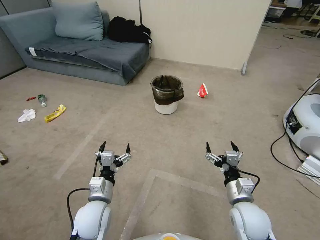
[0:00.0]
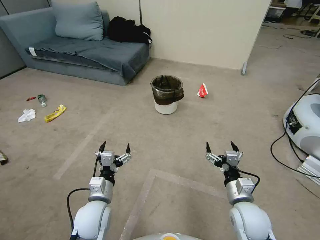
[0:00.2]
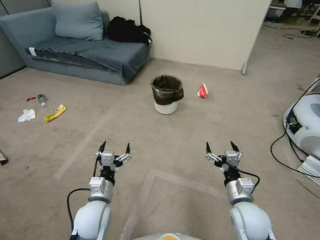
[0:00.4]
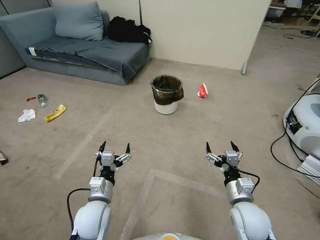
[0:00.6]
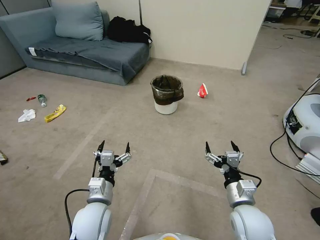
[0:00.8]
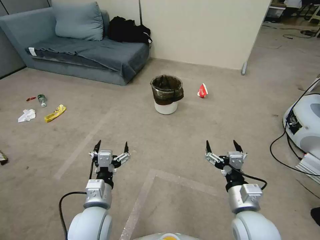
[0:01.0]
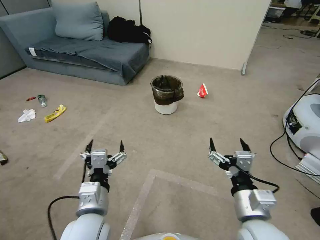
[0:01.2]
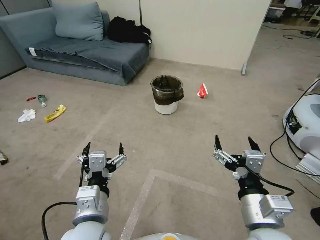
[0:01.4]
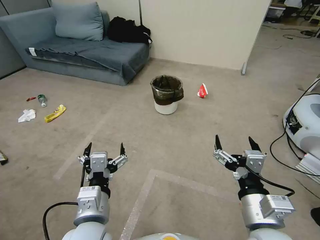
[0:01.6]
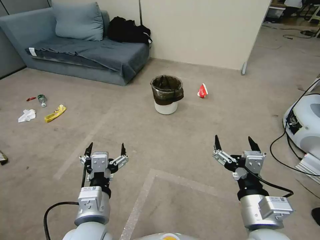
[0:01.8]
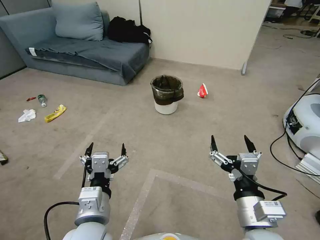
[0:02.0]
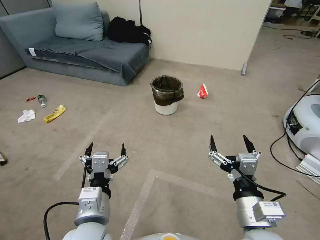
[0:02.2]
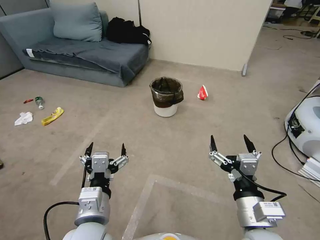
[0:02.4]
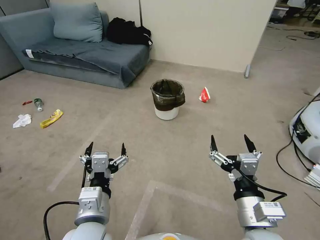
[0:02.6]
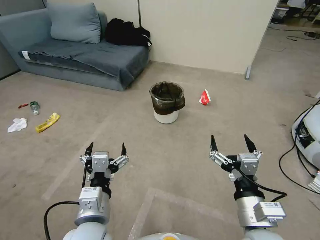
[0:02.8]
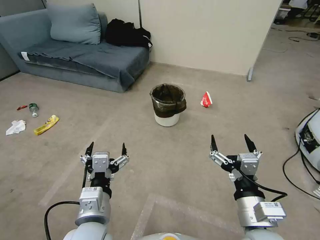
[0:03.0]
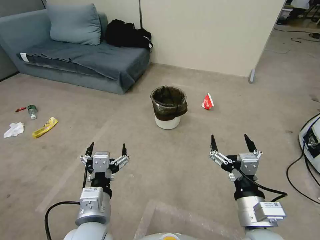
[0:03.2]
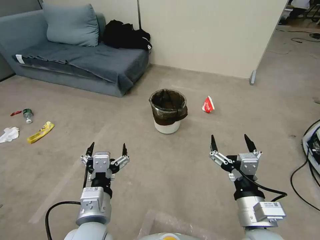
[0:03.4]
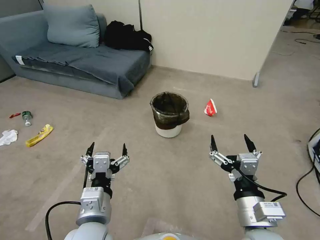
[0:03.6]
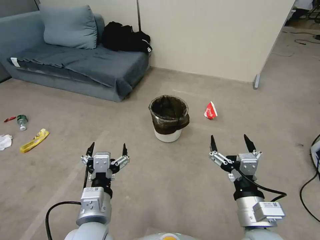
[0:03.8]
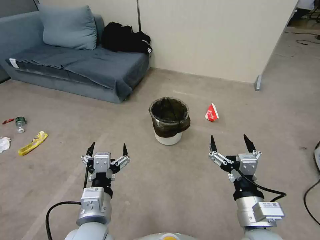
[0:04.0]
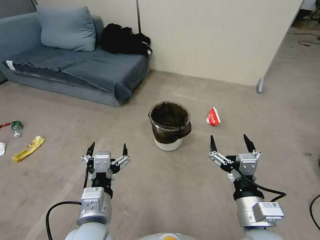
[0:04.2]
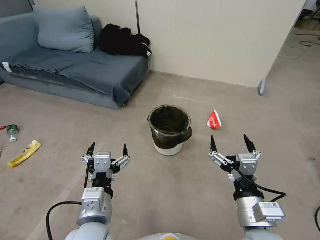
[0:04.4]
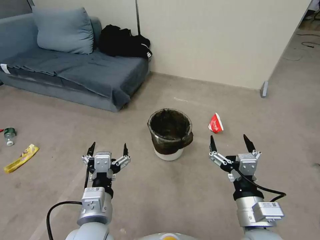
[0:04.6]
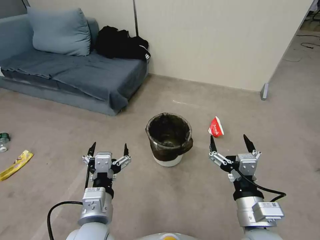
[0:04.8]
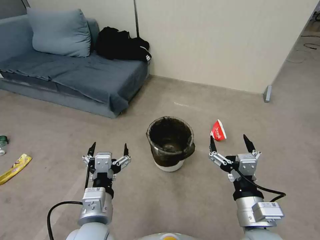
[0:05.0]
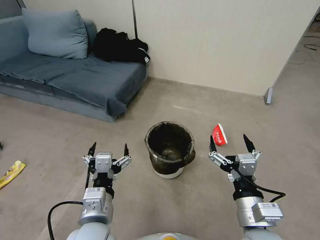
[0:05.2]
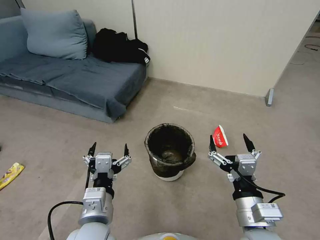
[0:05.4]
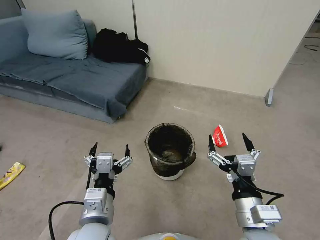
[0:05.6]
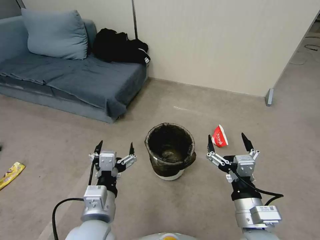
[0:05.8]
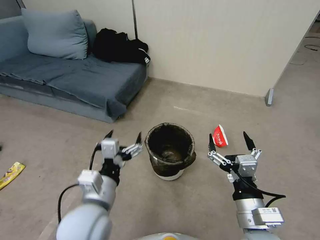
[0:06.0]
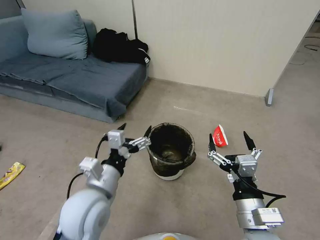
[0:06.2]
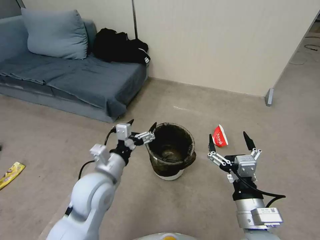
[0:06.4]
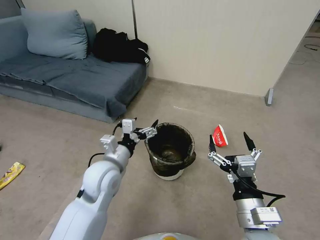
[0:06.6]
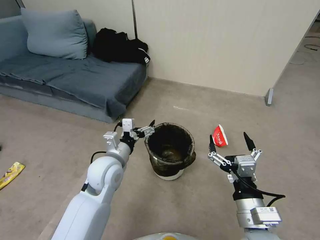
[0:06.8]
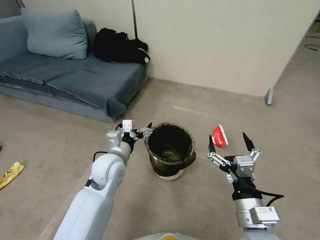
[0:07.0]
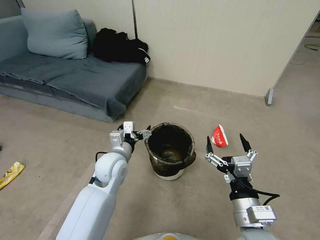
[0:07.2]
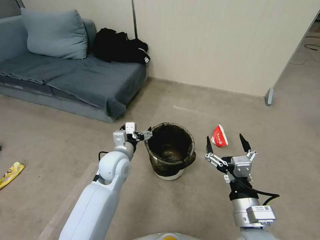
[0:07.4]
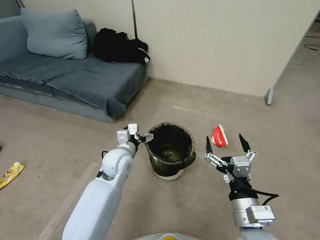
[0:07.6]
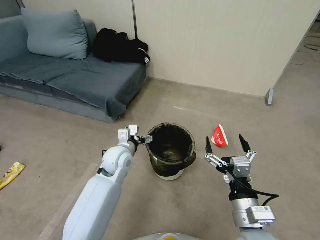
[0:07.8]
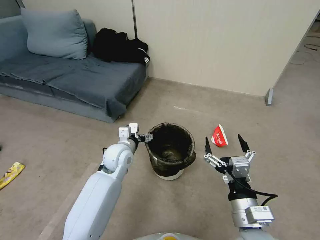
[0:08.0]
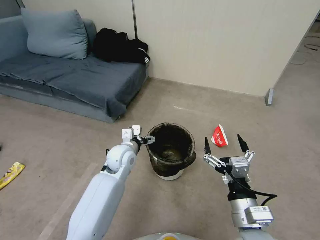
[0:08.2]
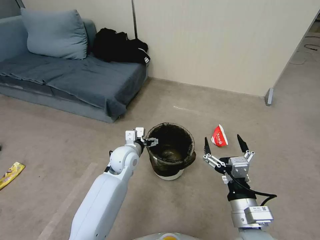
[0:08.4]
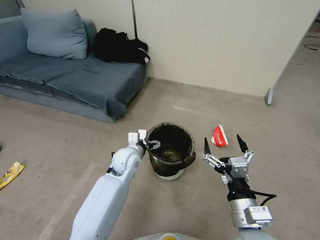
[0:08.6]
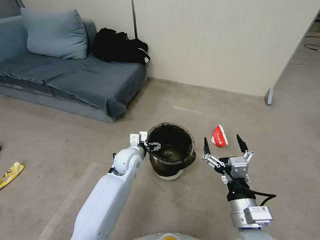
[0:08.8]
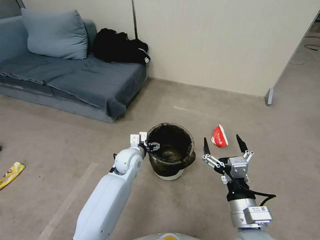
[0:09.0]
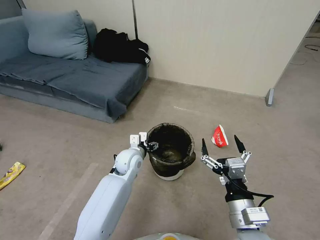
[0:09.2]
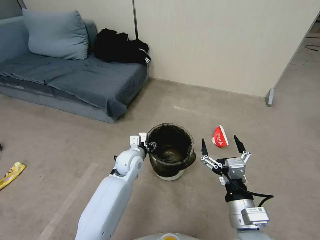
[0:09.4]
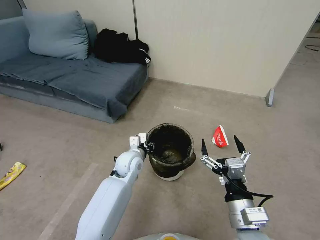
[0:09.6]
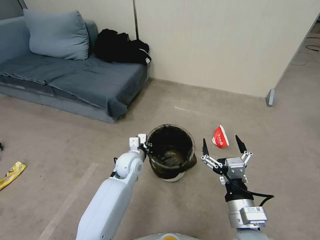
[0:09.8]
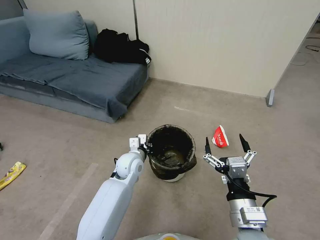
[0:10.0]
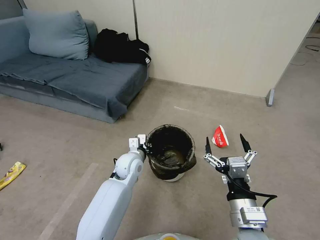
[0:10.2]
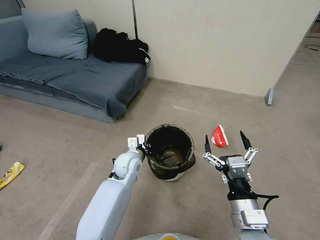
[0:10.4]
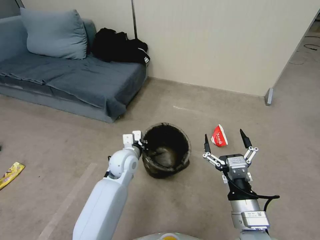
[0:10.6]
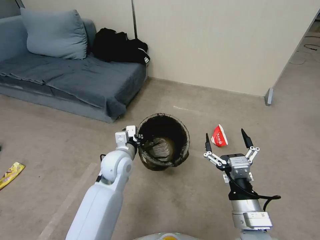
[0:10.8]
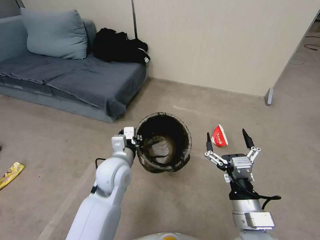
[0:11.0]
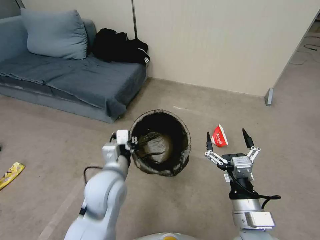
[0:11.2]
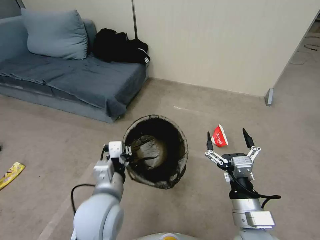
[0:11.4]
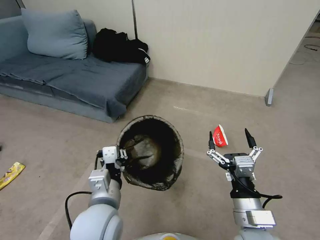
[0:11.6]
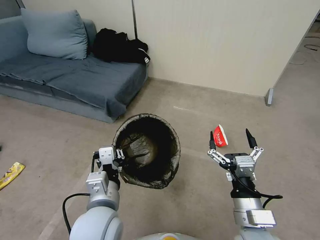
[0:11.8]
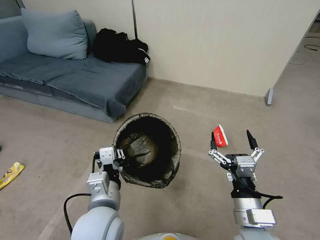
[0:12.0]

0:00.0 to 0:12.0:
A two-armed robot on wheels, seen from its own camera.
Task of the whole recording: Pick up the trash bin, then pick up the garbage from the floor and place it into the trash bin.
0:06.0 to 0:07.6: The left gripper shifts about 20 cm forward and downward.
0:07.6 to 0:09.0: The left gripper goes some 5 cm downward.
0:09.0 to 0:10.4: The left gripper closes its fingers.
0:10.4 to 0:12.0: The left gripper goes about 25 cm backward and upward.

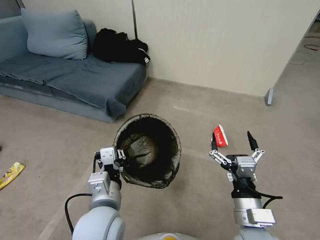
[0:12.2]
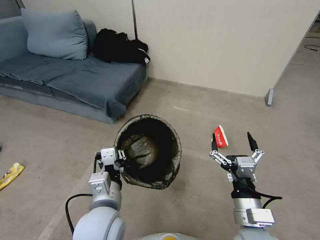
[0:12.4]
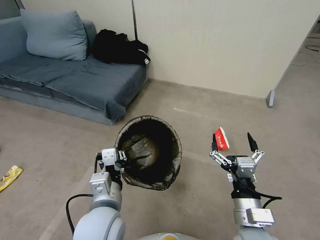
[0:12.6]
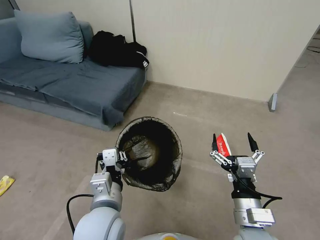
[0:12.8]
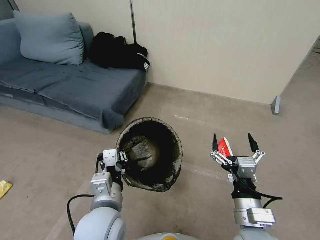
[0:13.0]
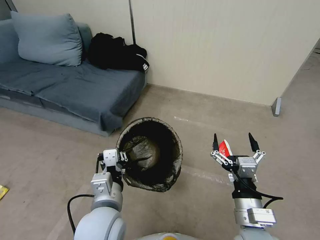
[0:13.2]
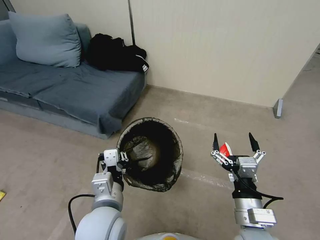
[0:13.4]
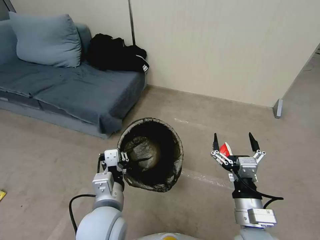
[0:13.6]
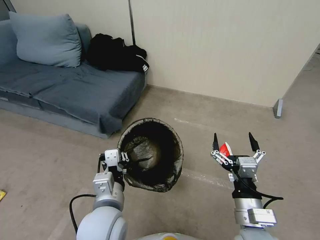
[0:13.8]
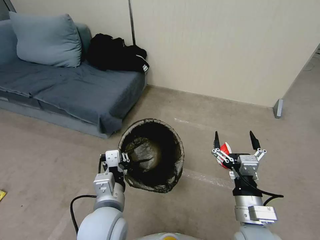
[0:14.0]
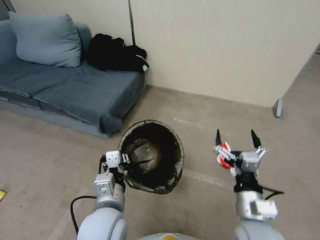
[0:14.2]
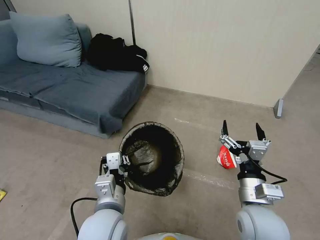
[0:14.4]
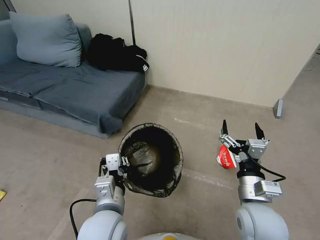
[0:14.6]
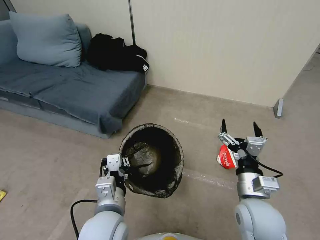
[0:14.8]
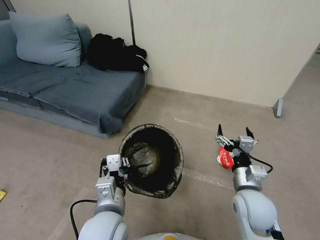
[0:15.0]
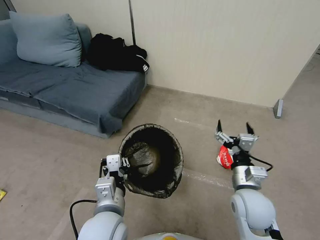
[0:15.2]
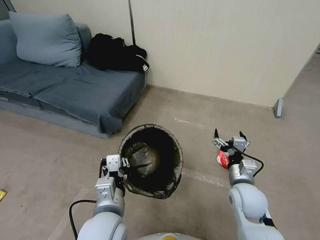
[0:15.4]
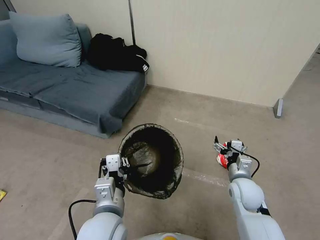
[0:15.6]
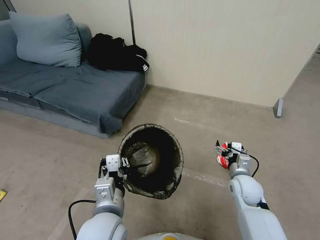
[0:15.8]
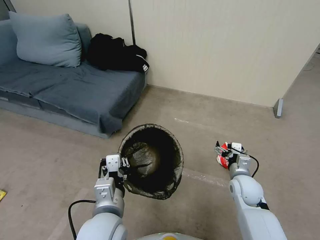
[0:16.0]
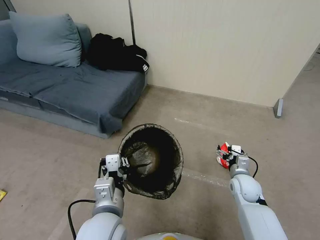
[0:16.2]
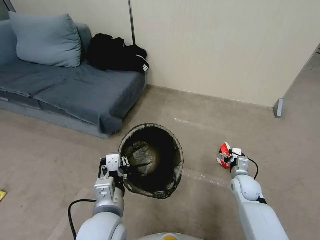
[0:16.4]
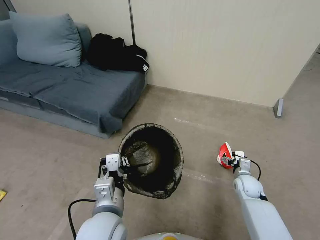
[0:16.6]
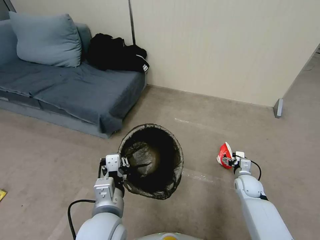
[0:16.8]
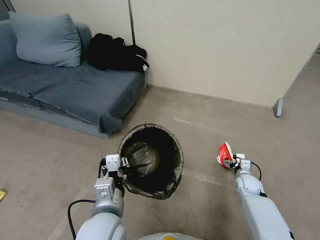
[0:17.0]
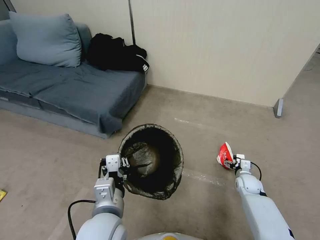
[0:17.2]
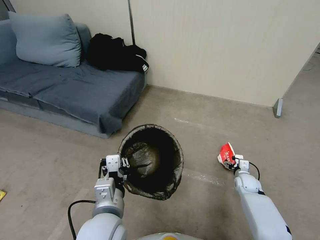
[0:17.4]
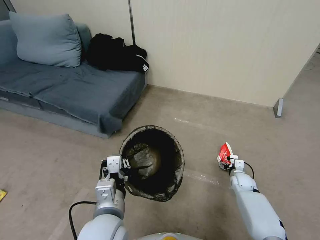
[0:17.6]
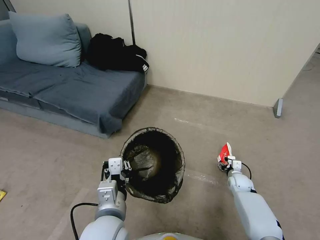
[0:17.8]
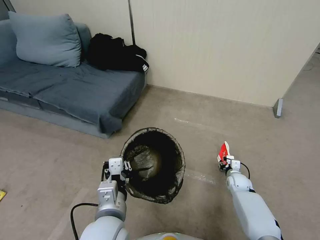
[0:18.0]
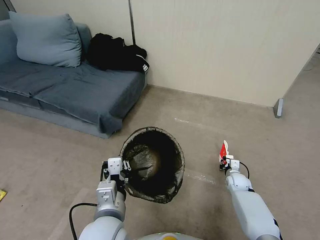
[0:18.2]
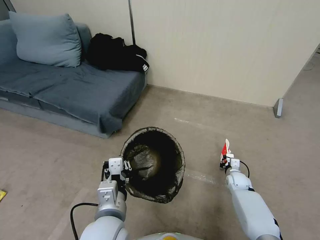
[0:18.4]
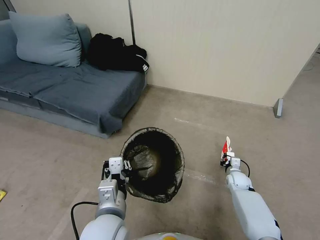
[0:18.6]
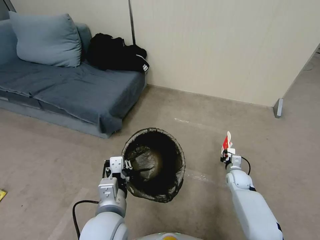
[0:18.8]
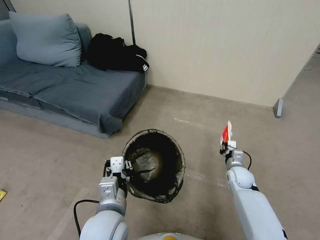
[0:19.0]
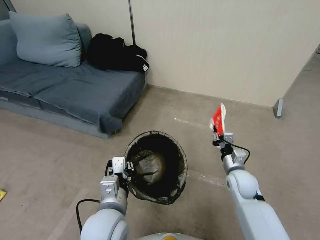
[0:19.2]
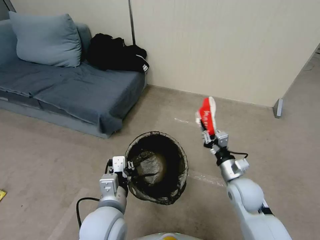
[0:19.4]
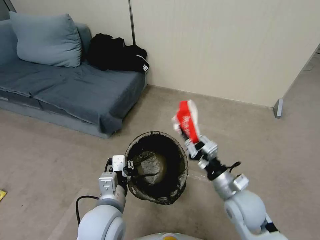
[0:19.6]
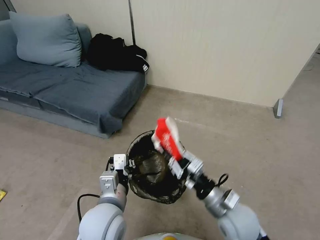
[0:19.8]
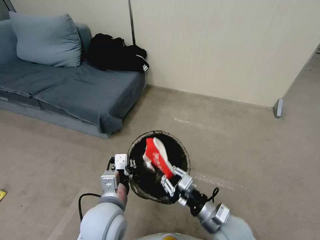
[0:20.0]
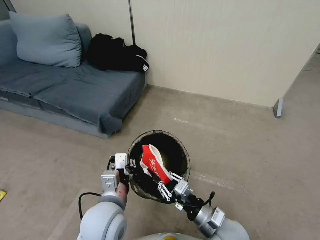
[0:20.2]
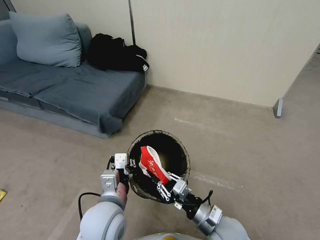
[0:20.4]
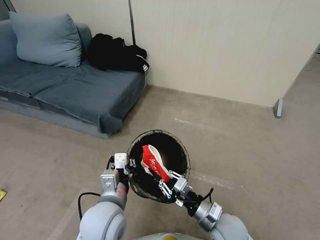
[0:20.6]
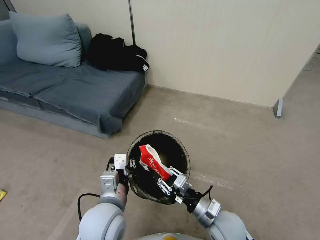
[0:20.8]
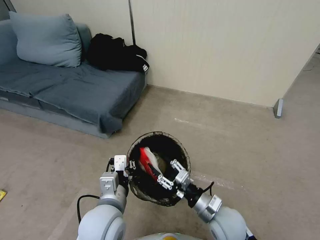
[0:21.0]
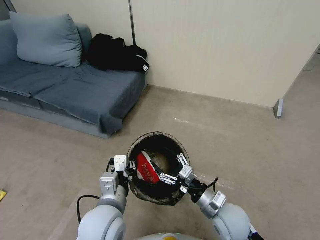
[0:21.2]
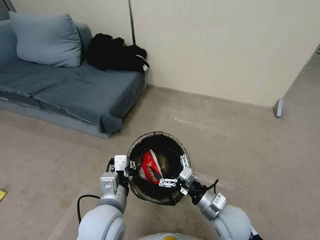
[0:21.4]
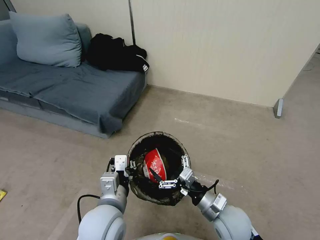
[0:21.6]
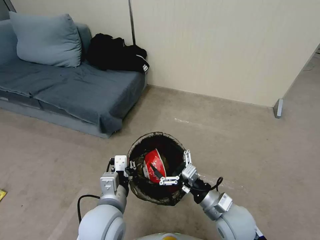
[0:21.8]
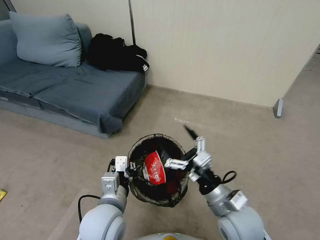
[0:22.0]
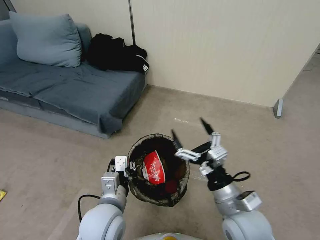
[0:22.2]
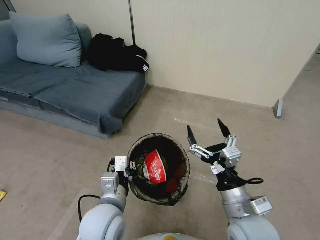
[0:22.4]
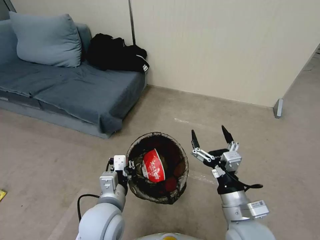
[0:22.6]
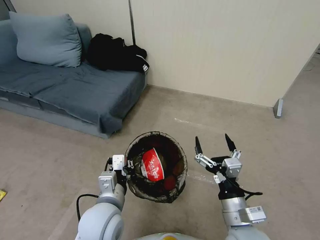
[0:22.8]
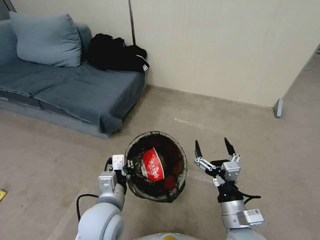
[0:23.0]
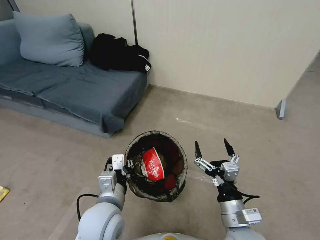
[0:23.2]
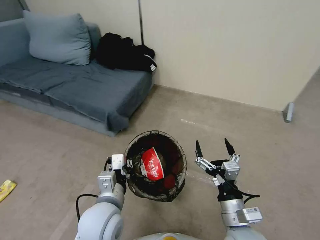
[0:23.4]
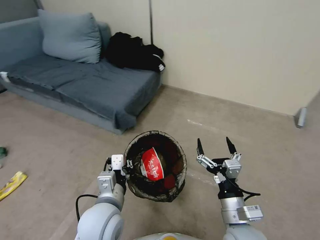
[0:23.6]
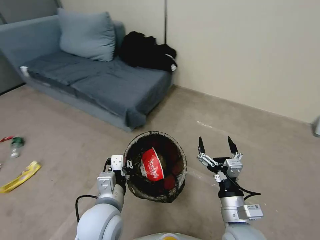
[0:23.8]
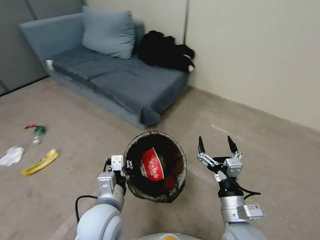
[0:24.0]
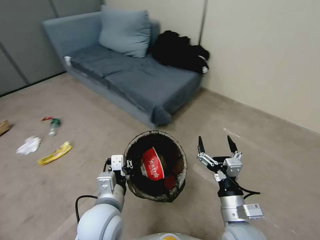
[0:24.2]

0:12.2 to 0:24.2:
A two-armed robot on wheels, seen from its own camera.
Task of the whole recording: Pick up the trash bin, then pick up the garbage from the floor and place it into the trash bin.
0:12.2 to 0:13.8: Both grippers stay put.
0:13.8 to 0:15.2: The right gripper is displaced forward by approximately 10 cm.
0:15.2 to 0:16.6: The right gripper moves downward, forward and to the right, some 25 cm.
0:16.6 to 0:18.2: The right gripper is displaced downward by about 5 cm, and closes up.
0:18.2 to 0:19.8: The right gripper travels upward, backward and to the left by roughly 30 cm.
0:19.8 to 0:21.2: The right gripper opens up.
0:21.2 to 0:22.6: The right gripper moves upward and backward, about 10 cm.
